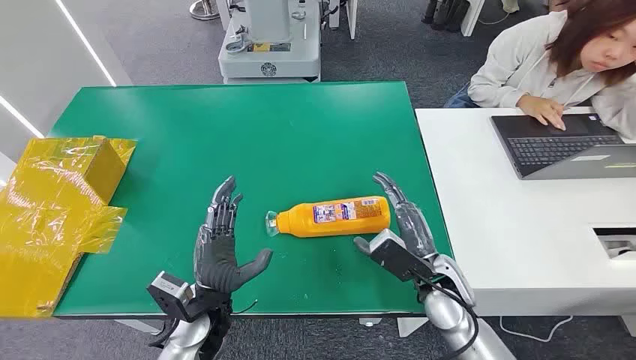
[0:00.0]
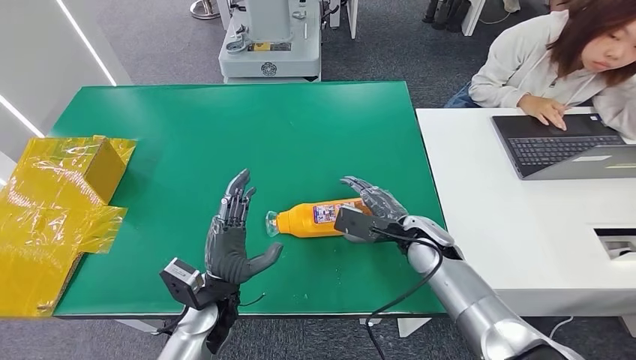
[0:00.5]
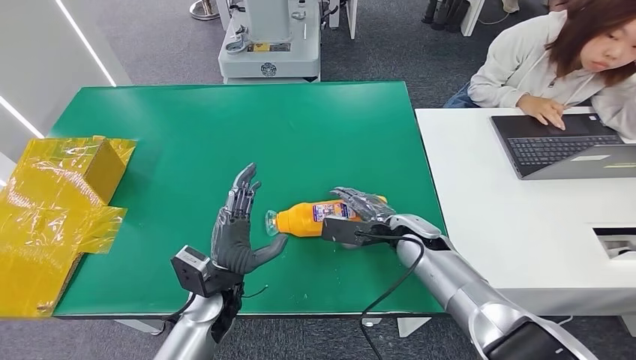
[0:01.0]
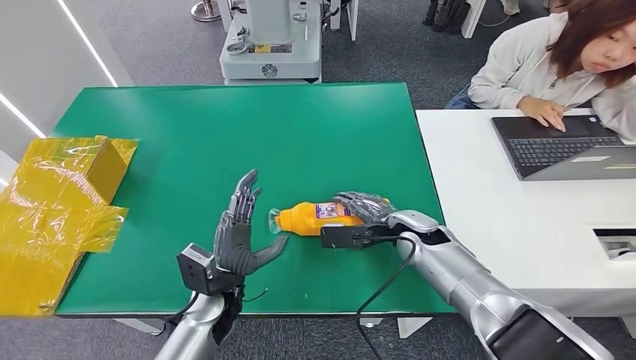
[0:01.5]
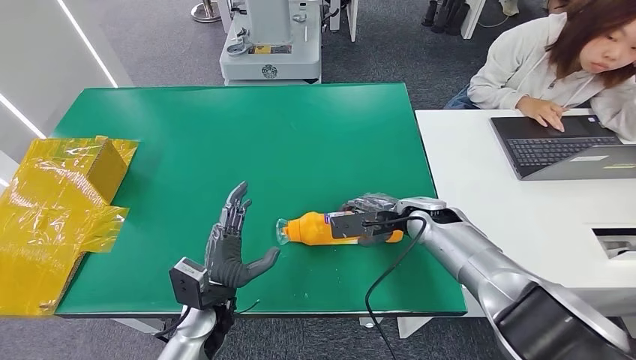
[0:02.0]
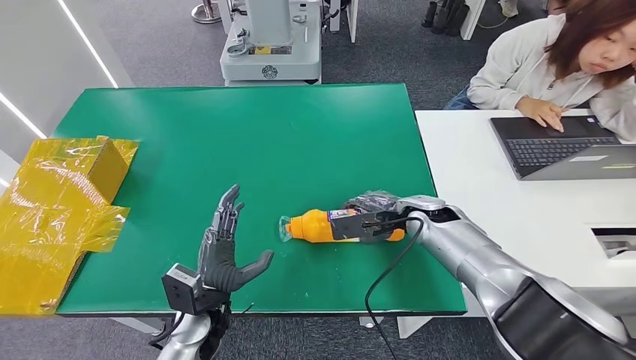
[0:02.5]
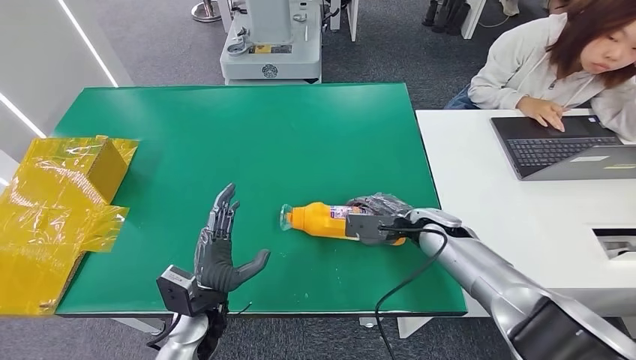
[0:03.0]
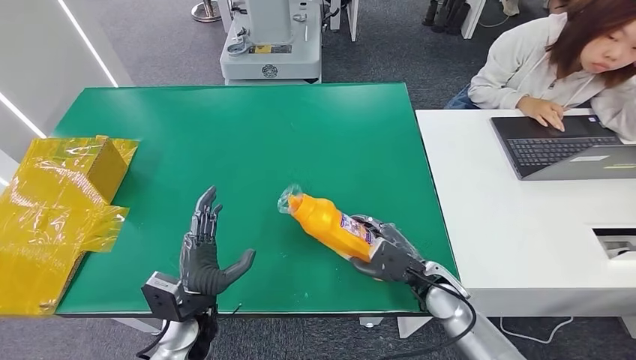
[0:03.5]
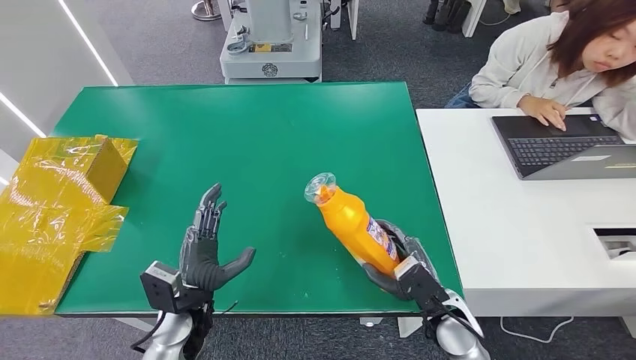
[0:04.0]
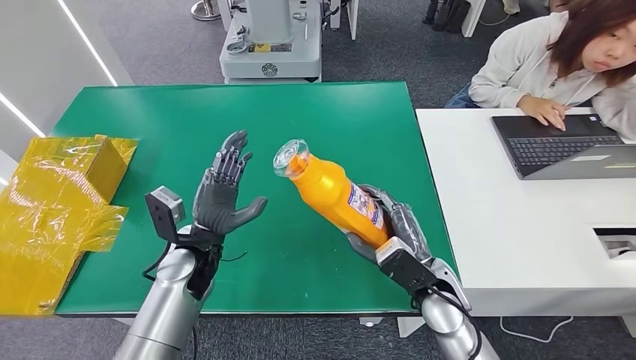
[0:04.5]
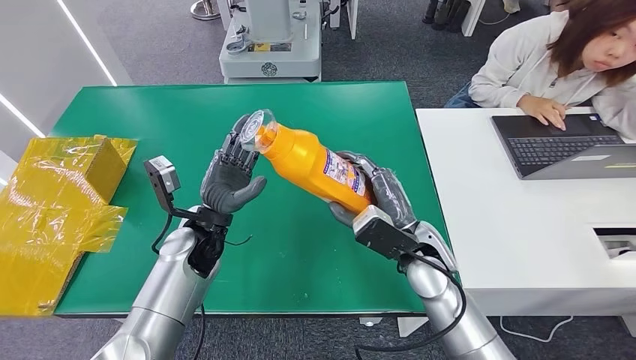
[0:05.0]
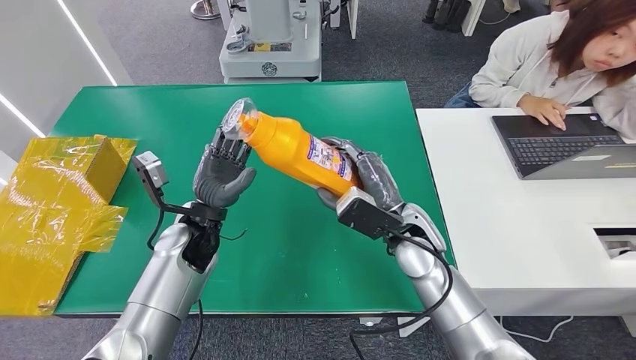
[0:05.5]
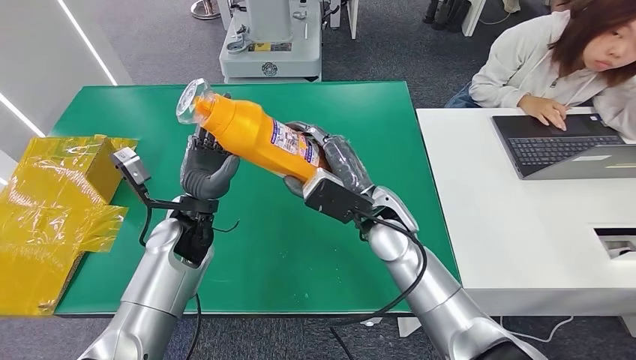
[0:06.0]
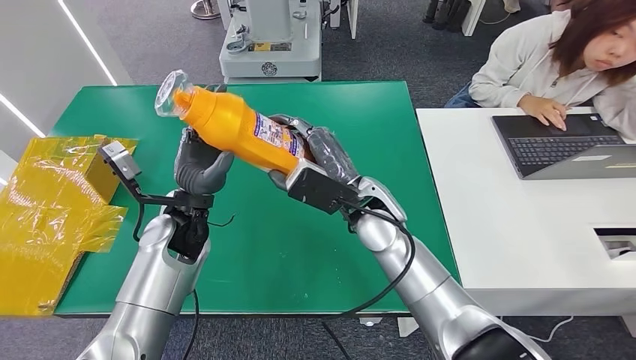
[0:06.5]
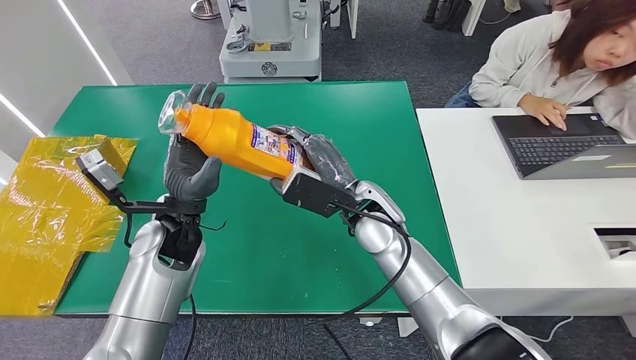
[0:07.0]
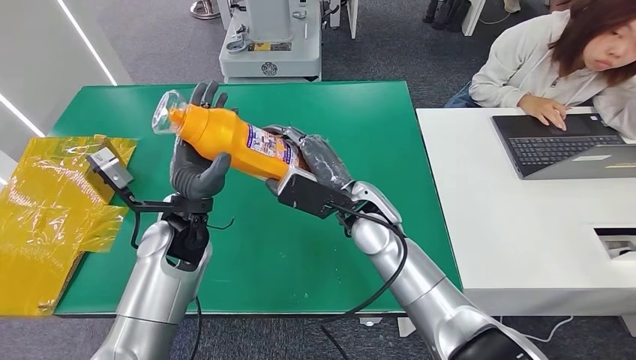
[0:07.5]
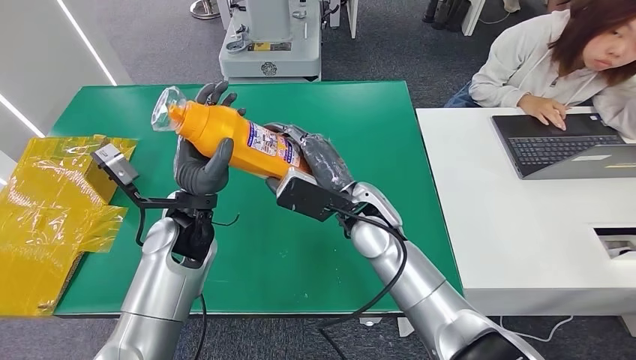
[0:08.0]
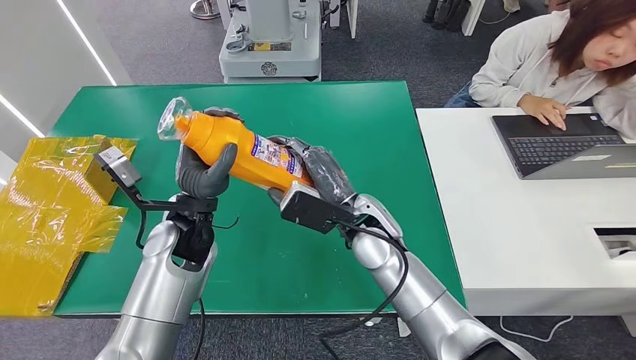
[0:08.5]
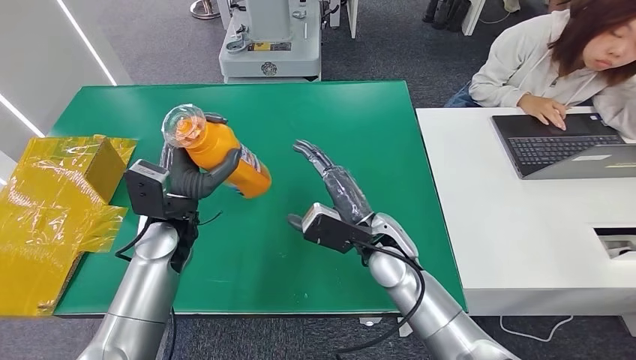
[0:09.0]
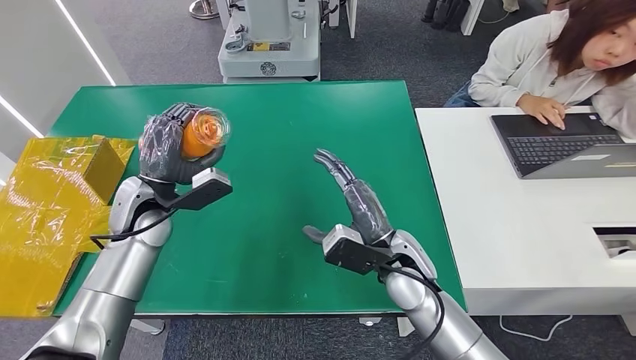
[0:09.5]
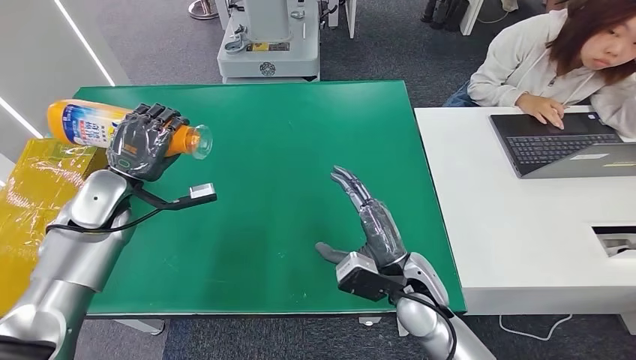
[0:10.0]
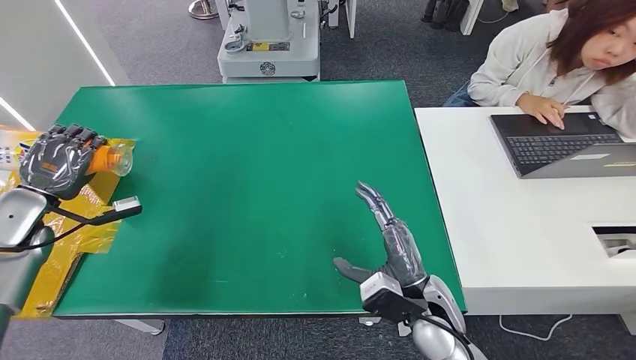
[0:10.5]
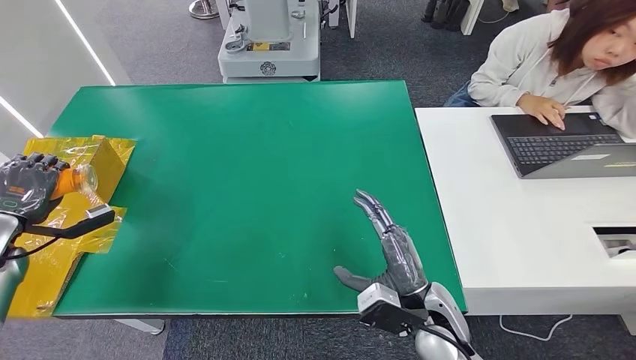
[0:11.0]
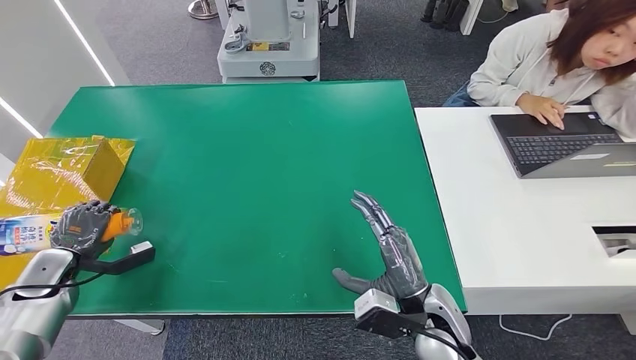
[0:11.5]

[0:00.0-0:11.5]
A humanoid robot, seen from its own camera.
Step, 0:00.0 to 0:05.0: Pick up the bottle from the table.
0:02.0 to 0:04.0: The right hand travels backward and downward by roughly 20 cm.
0:04.0 to 0:06.0: The right hand shifts roughly 25 cm upward, to the left and forward, while the left hand shifts roughly 15 cm forward and upward.
0:06.0 to 0:07.5: There are only small adjustments of the hands.
0:09.5 to 0:11.5: The right hand heads backward, covering about 10 cm. Meanwhile the left hand is displaced to the left and downward by some 25 cm.

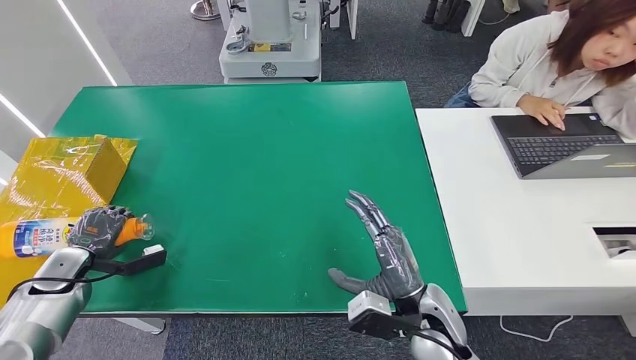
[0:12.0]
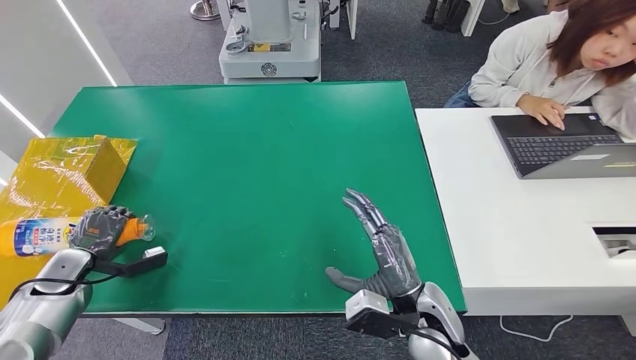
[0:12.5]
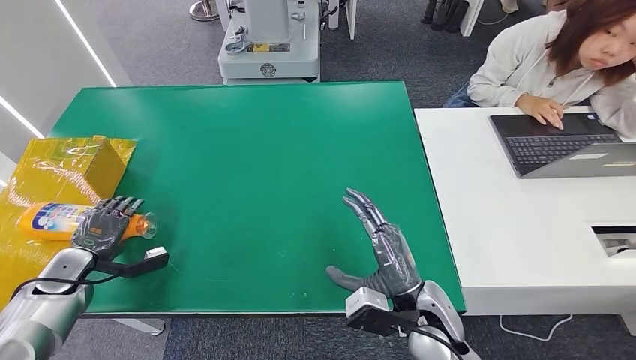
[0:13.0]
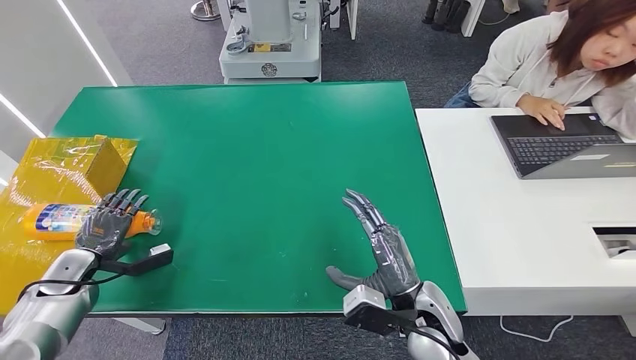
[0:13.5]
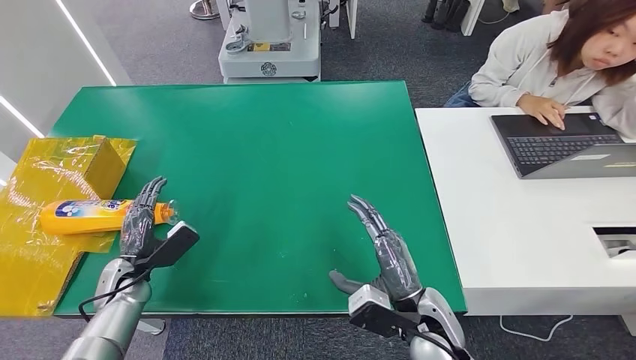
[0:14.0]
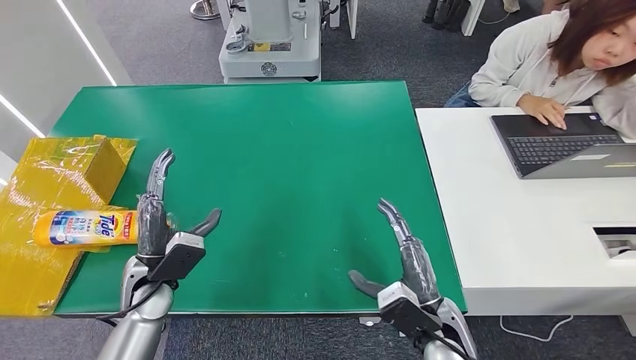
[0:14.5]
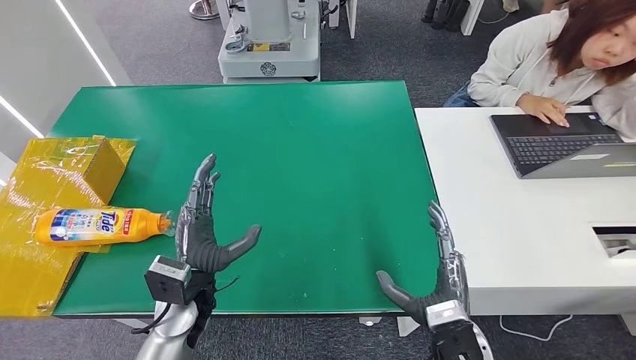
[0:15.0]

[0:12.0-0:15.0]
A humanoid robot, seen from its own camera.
Step, 0:12.0 to 0:15.0: Turn the bottle to the front side.
0:12.0 to 0:13.5: The hands make only small movements.
0:13.5 to 0:15.0: The left hand travels to the right by roughly 30 cm. The right hand goes about 5 cm backward.
